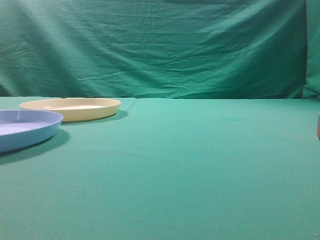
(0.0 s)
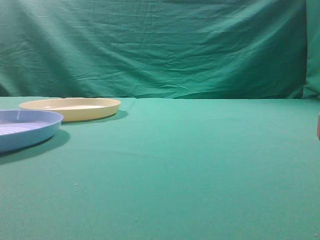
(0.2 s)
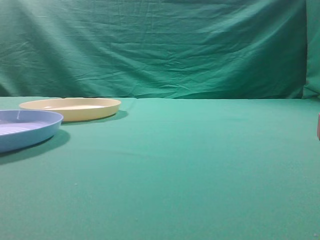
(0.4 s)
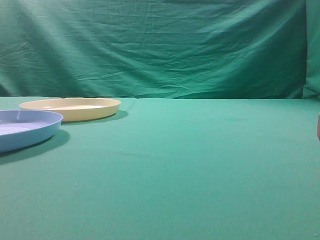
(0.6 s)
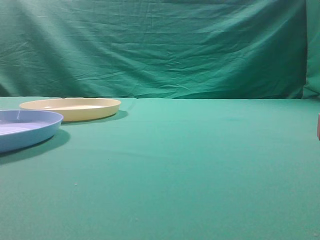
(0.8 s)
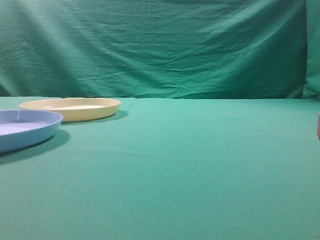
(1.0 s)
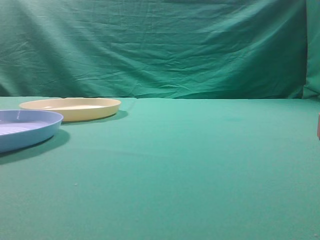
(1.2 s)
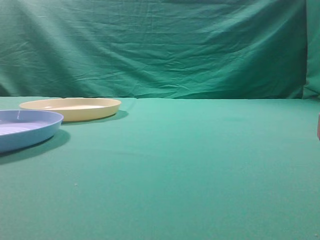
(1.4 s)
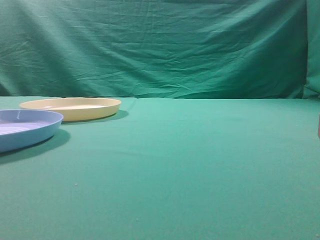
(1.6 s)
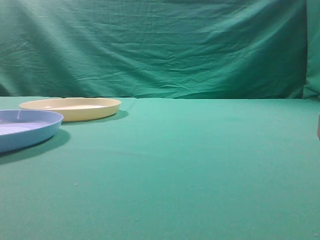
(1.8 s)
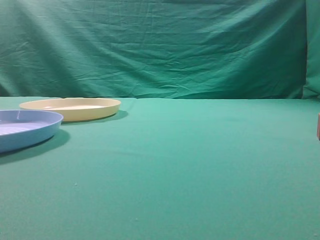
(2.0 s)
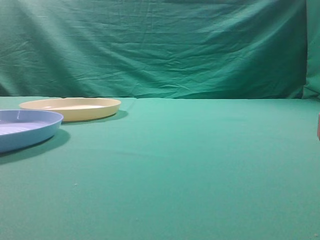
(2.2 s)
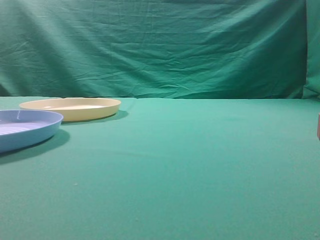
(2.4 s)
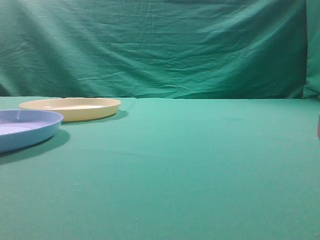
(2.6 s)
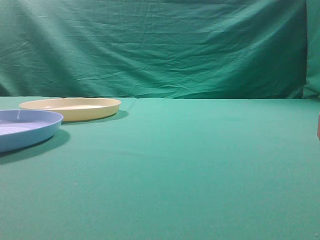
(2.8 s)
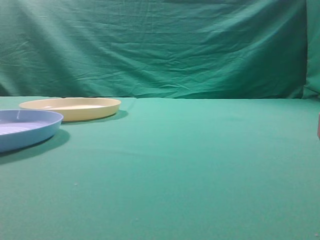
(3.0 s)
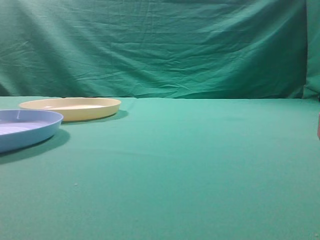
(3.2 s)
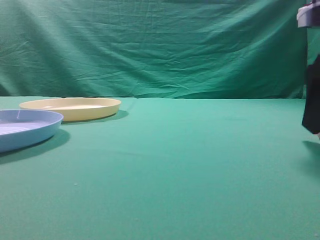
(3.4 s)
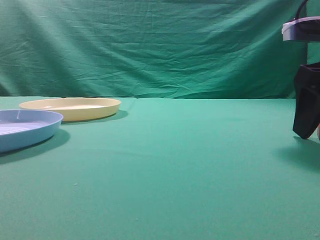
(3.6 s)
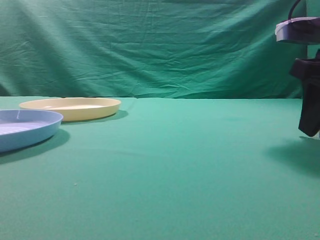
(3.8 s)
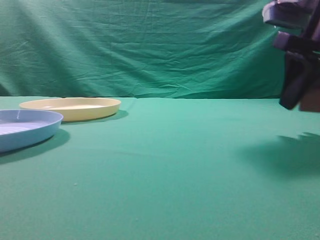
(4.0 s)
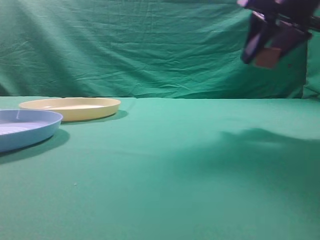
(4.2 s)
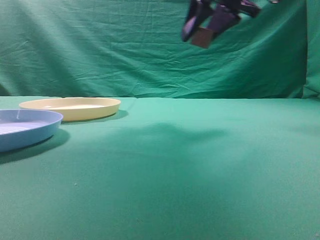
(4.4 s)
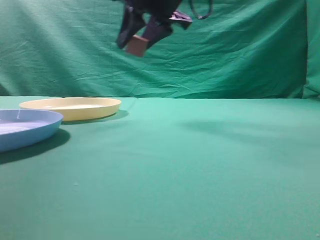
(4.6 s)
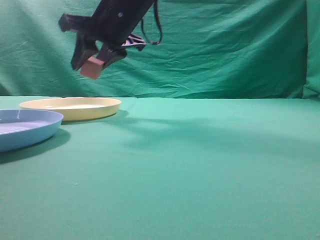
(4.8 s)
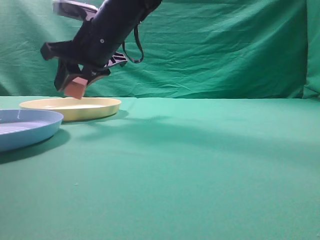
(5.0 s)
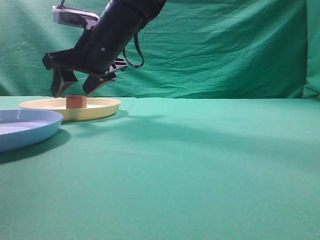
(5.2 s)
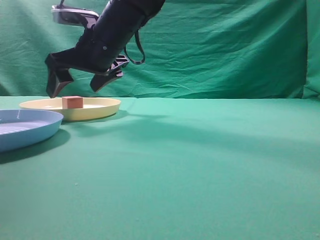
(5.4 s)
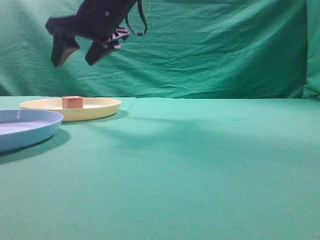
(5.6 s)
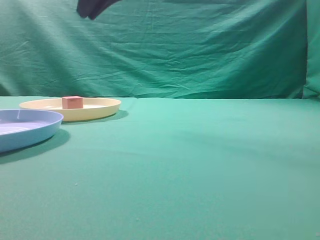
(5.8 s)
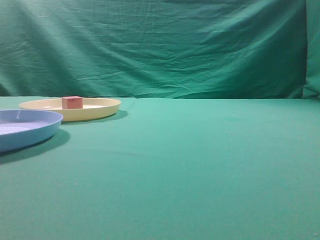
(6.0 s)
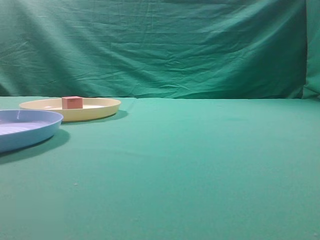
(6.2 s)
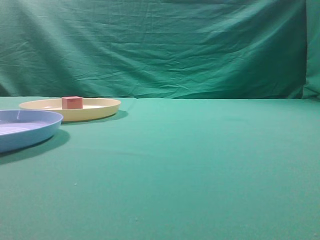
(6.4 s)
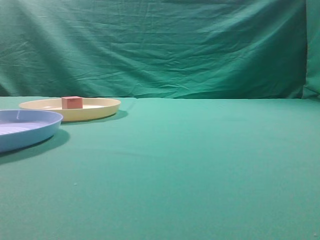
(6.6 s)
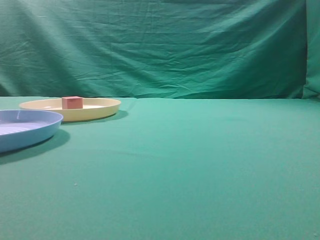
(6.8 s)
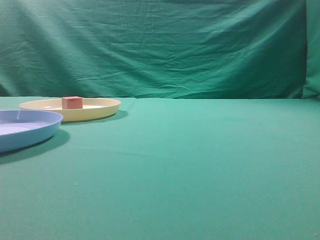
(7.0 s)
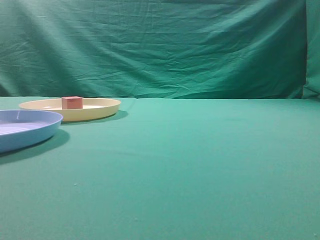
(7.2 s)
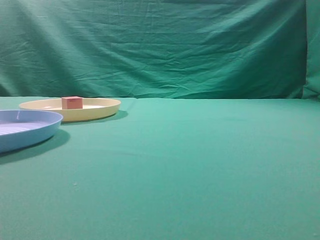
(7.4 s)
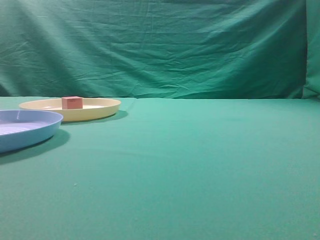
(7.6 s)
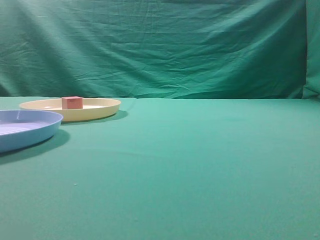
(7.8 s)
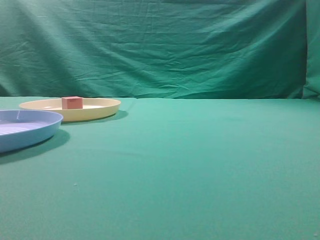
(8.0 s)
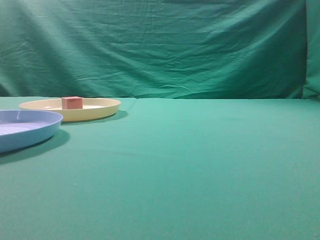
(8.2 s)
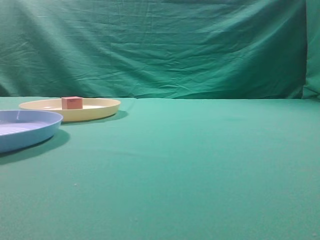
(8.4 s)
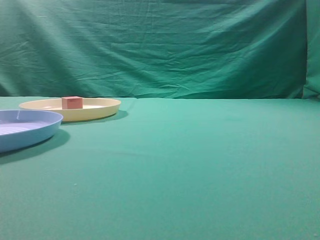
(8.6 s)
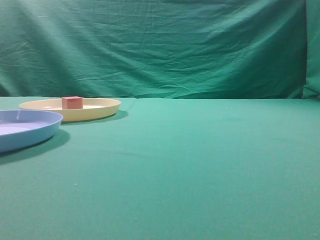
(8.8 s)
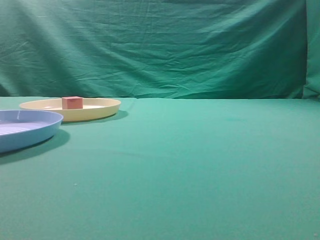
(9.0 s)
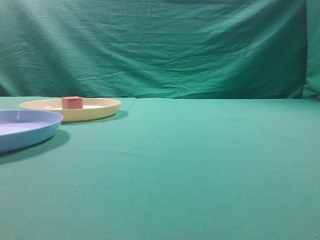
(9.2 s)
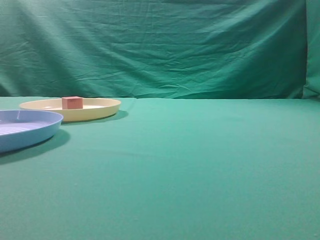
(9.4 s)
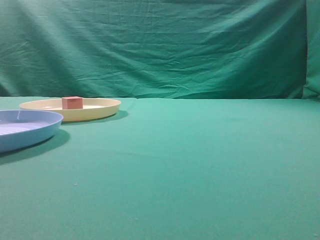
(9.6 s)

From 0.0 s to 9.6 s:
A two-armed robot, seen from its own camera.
Task of the whole recording: pick up the cube block from the table and put it on the plate.
Step, from 0.0 s to 4.2 s: Grasp the small cube on the table.
Step, from 4.4 s to 6.0 s: Place it into the yellow plate.
From 3.2 s to 4.8 s: The right gripper heads to the left and forward, covering some 35 cm, and closes its fingers.
From 4.8 s to 6.4 s: The right gripper shifts approximately 50 cm upward, to the right and backward, and closes its fingers.
